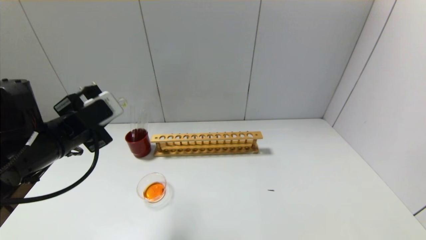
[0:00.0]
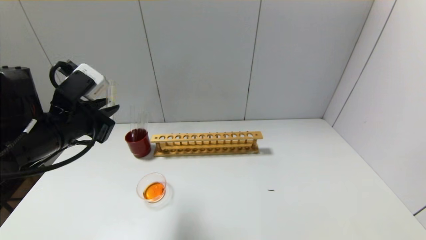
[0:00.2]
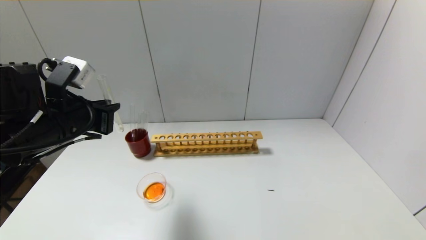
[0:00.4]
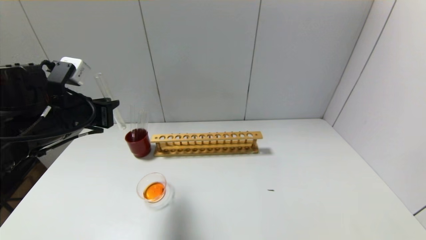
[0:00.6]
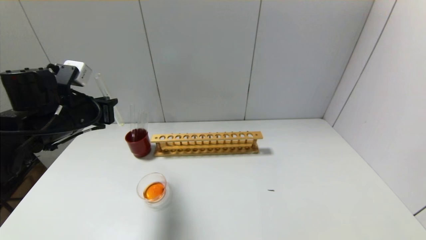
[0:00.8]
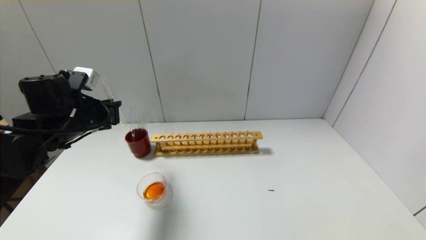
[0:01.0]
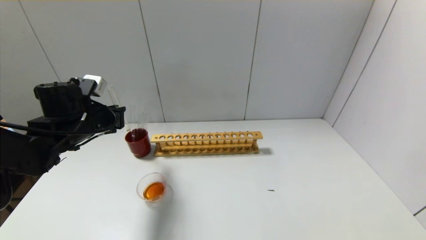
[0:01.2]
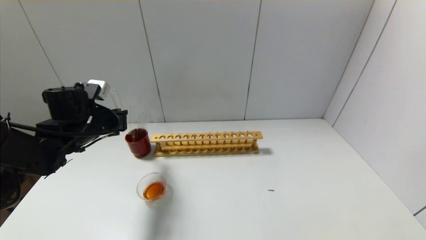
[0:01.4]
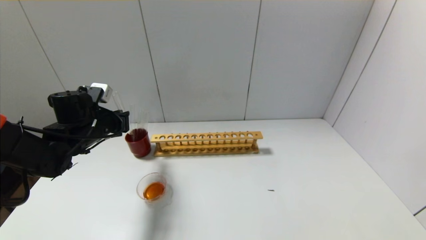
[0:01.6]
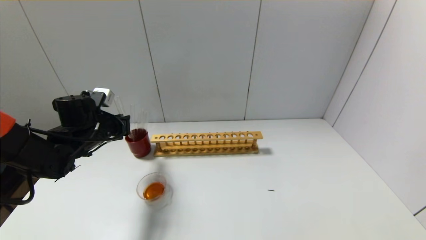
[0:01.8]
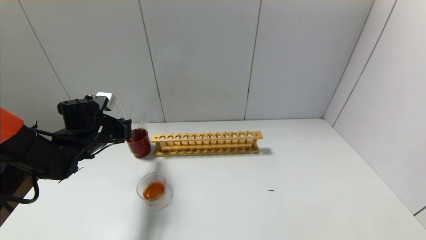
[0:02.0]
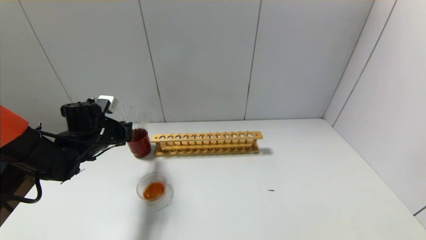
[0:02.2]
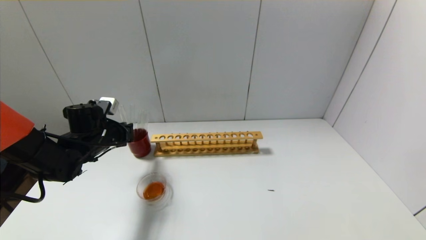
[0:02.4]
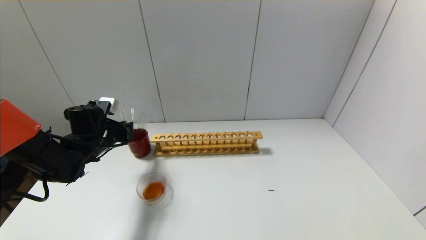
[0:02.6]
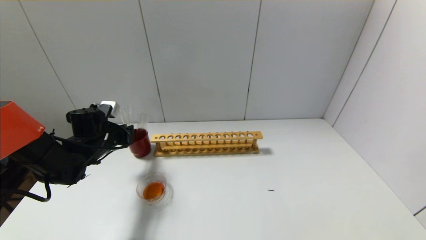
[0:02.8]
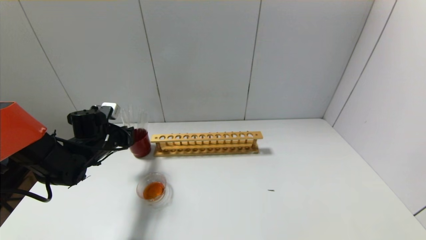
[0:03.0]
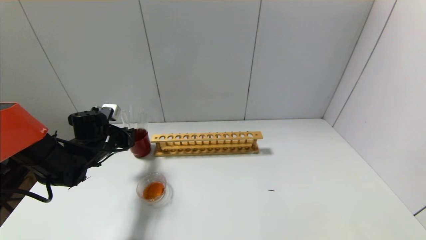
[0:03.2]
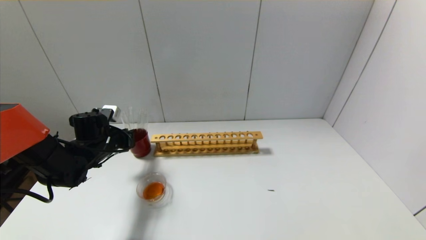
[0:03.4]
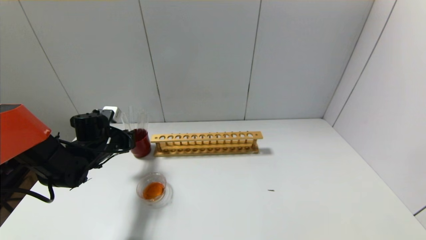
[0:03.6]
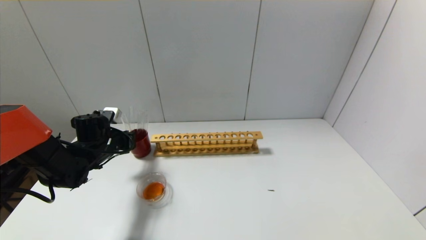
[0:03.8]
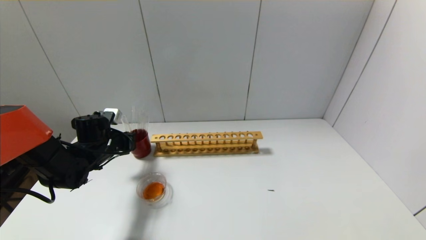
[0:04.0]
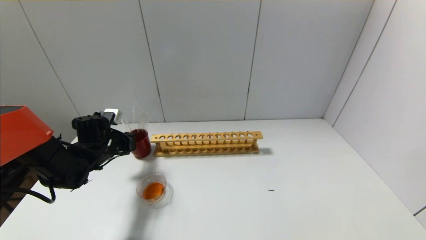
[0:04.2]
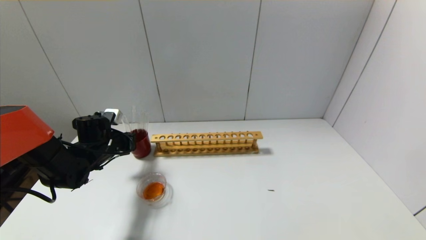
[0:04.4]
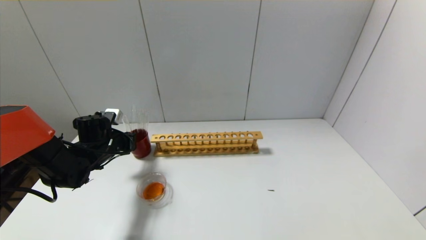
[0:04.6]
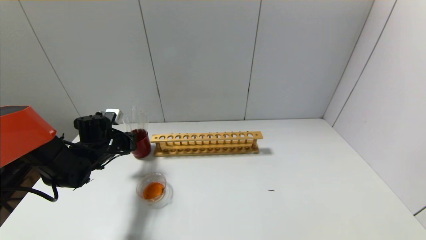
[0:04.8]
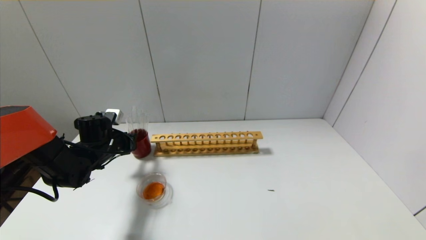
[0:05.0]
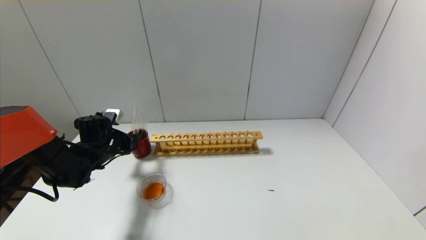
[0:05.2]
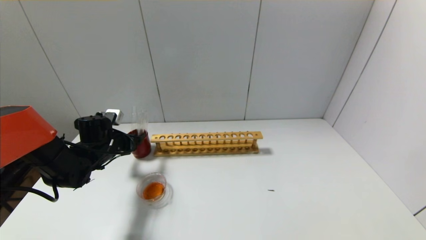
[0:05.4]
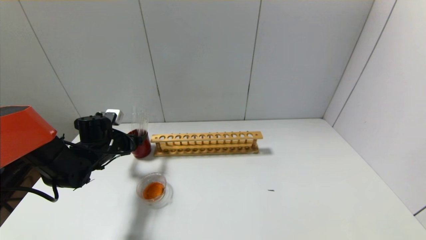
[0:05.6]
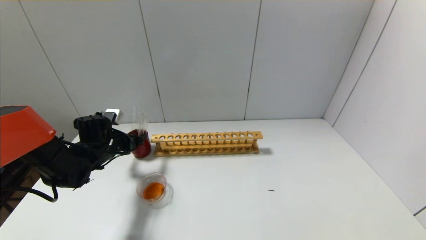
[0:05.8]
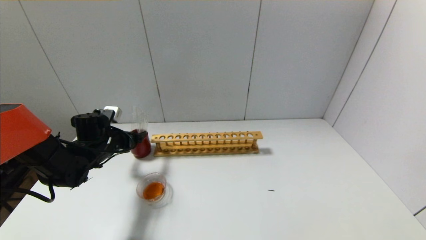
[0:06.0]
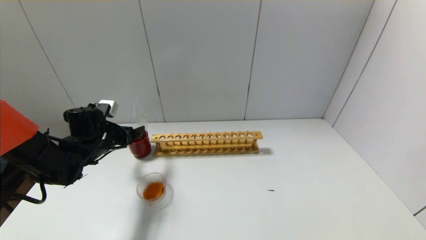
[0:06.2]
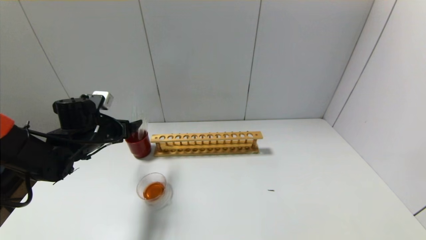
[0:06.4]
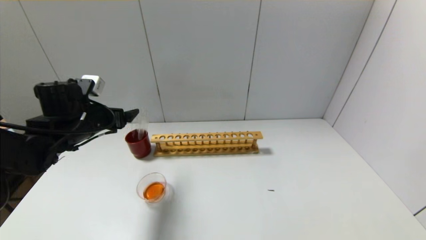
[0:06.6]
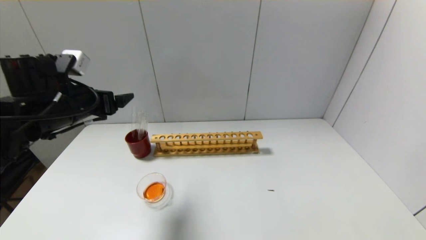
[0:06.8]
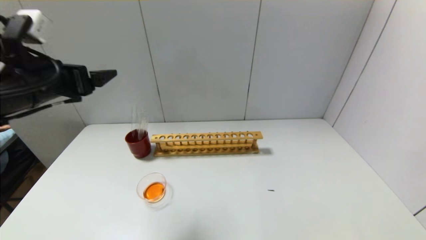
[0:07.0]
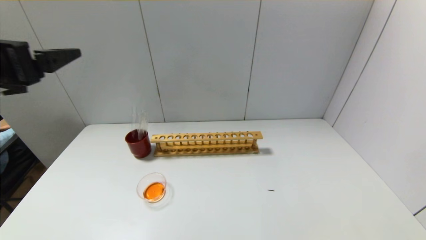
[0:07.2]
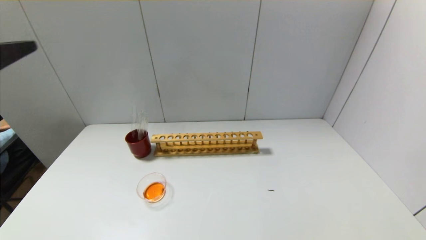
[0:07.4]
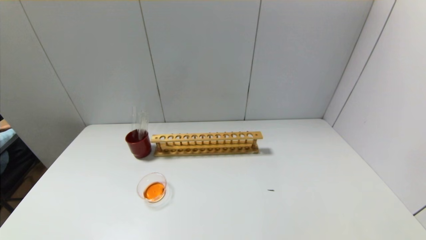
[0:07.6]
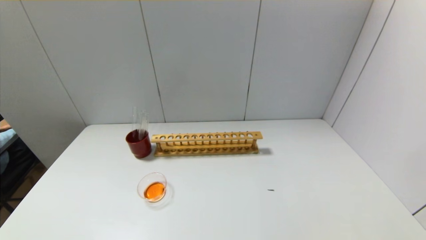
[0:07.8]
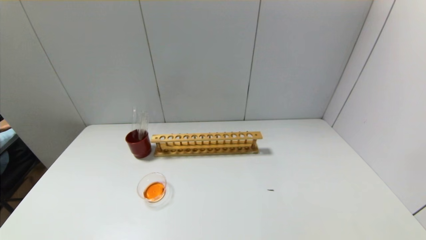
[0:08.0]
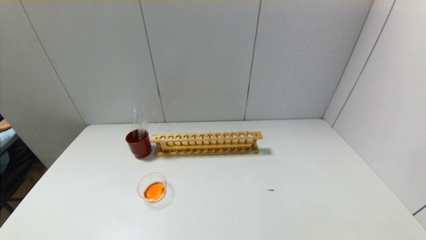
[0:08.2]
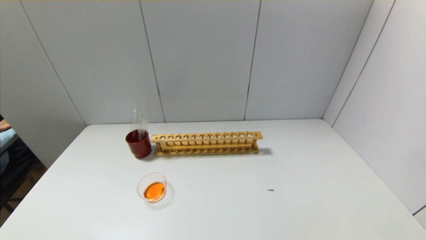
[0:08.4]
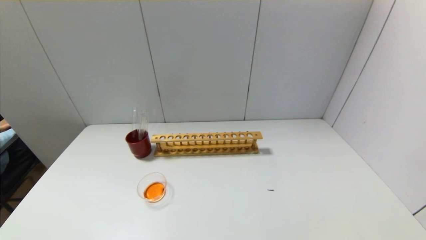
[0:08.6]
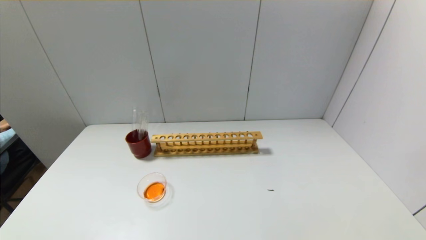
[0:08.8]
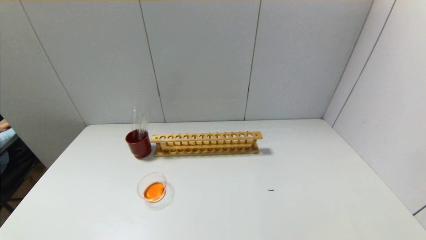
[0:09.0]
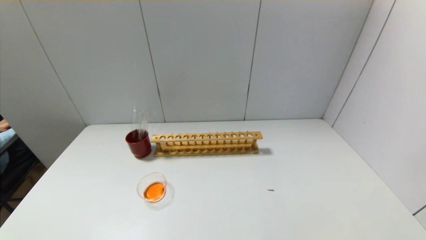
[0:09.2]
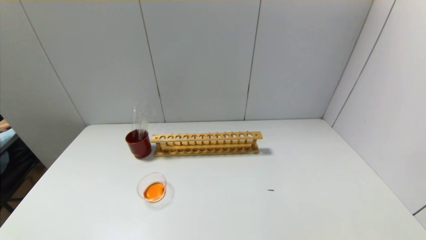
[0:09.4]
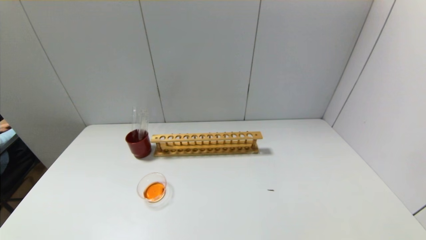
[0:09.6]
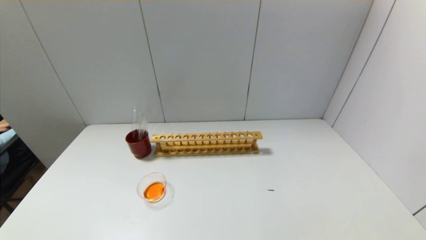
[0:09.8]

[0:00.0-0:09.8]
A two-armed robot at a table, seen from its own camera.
Step, 0.0 to 6.0 s: Place the test tube into the brown cup with the left gripper.
0.0 to 1.4 s: The left gripper goes approximately 10 cm forward and downward.
1.4 to 2.8 s: The left gripper shifts approximately 5 cm downward.
2.8 to 4.2 s: The grippers move only a little.
4.2 to 5.6 s: The left gripper opens.
5.6 to 7.0 s: The left gripper shifts some 25 cm upward and backward.
7.0 to 8.4 s: The left gripper is displaced backward and downward by approximately 35 cm.

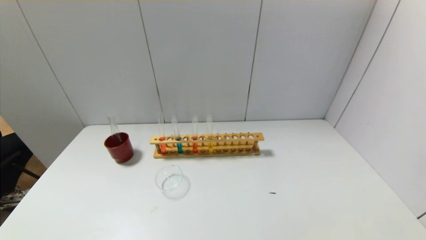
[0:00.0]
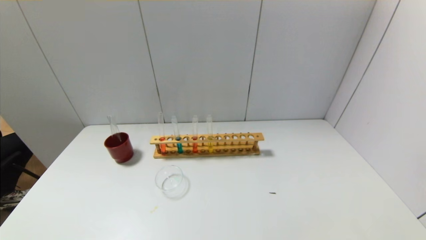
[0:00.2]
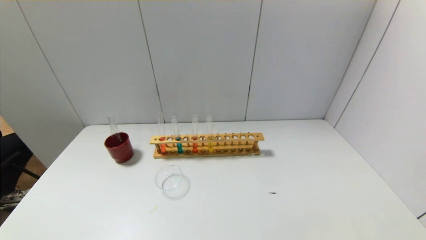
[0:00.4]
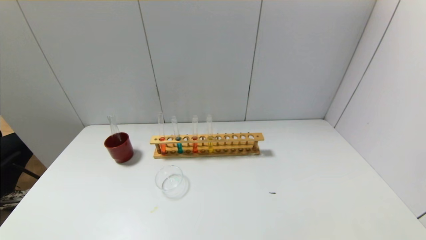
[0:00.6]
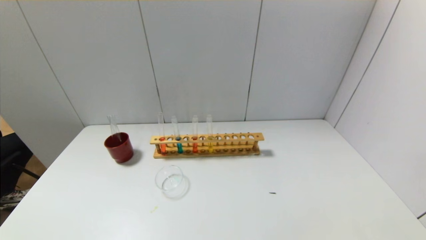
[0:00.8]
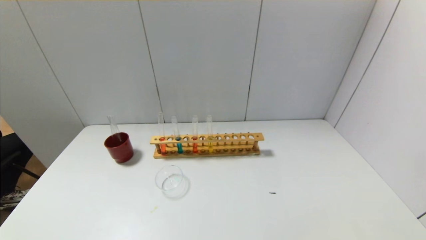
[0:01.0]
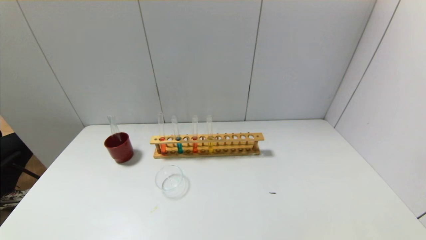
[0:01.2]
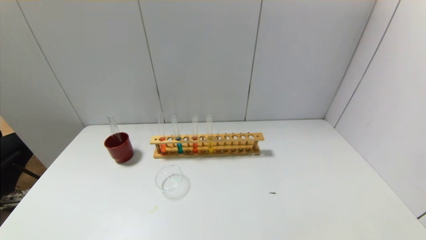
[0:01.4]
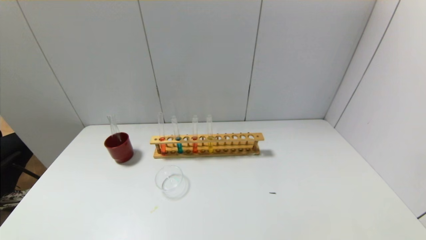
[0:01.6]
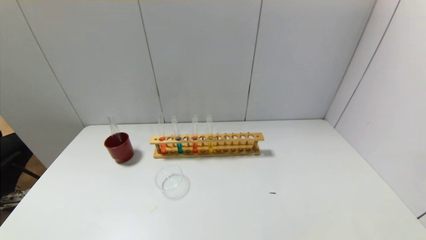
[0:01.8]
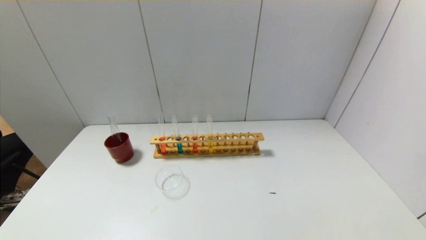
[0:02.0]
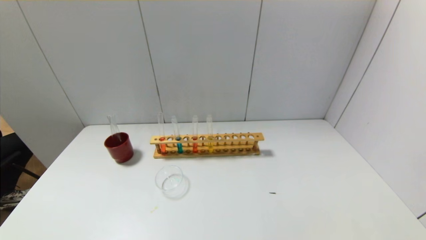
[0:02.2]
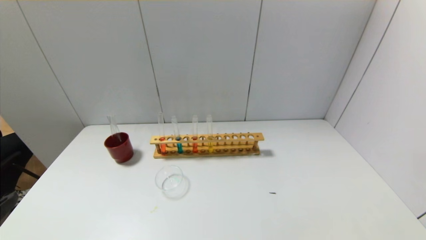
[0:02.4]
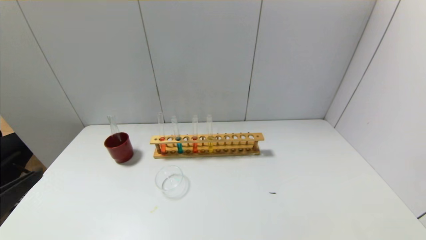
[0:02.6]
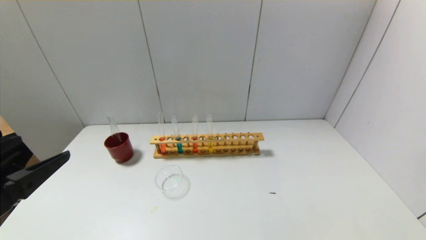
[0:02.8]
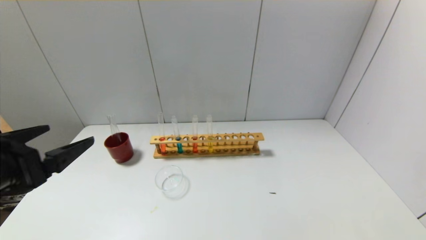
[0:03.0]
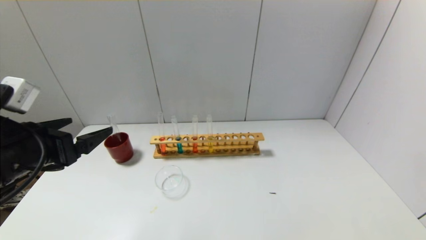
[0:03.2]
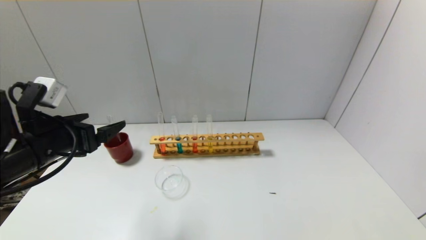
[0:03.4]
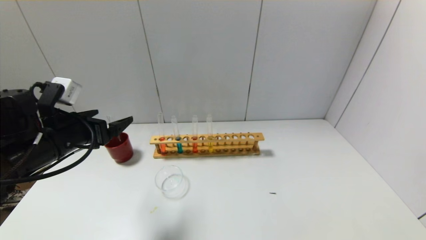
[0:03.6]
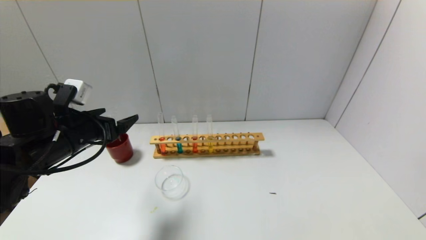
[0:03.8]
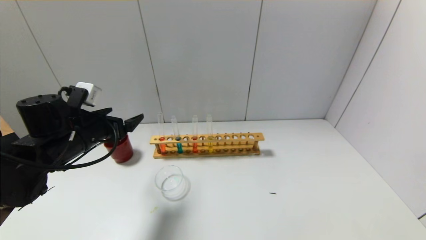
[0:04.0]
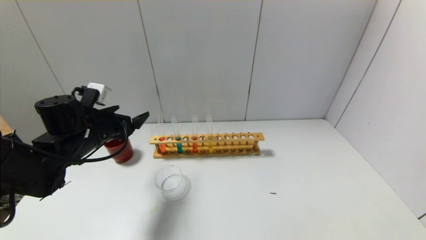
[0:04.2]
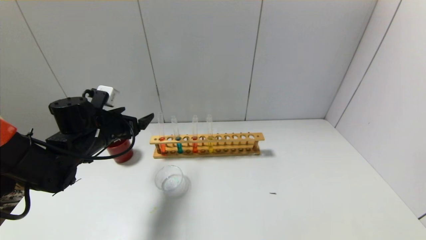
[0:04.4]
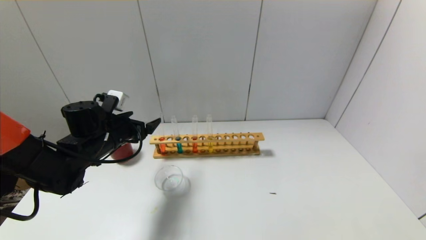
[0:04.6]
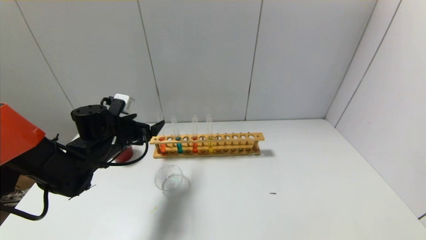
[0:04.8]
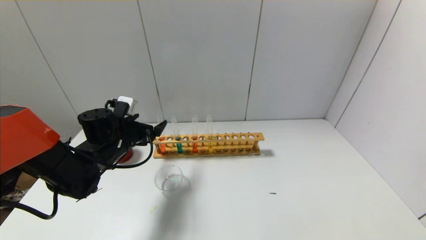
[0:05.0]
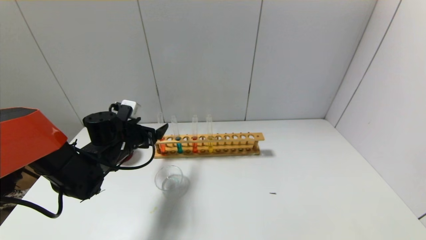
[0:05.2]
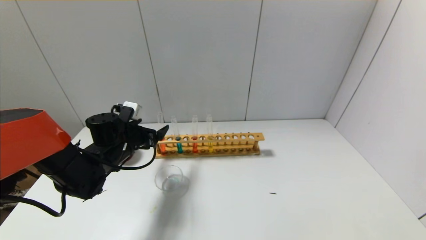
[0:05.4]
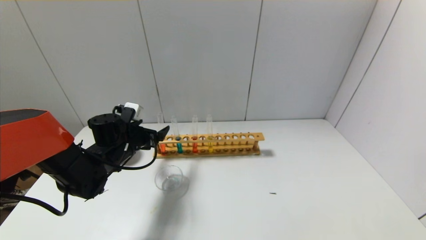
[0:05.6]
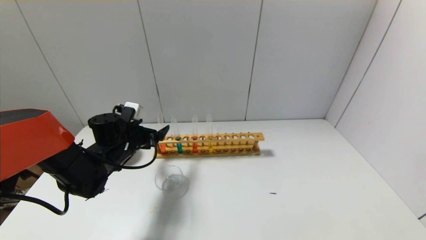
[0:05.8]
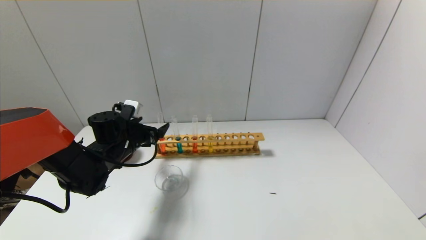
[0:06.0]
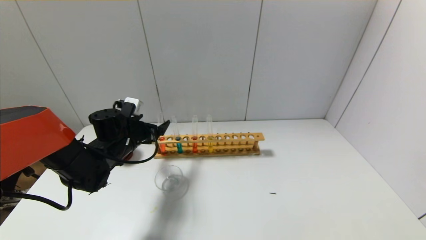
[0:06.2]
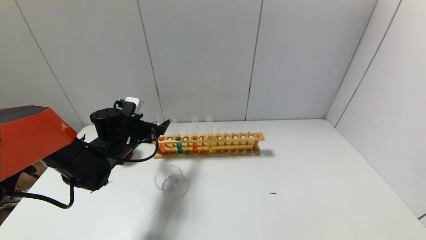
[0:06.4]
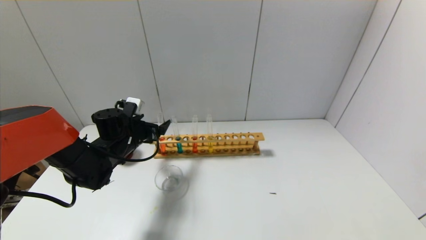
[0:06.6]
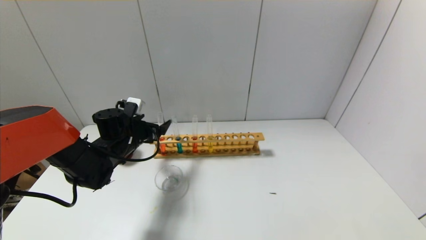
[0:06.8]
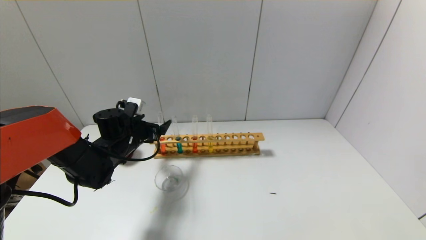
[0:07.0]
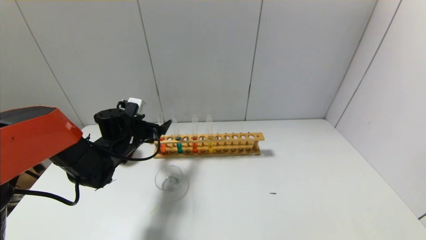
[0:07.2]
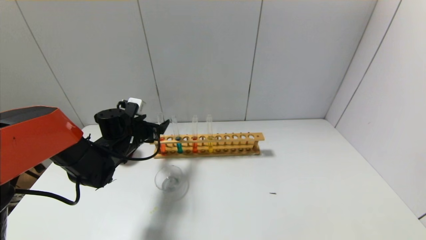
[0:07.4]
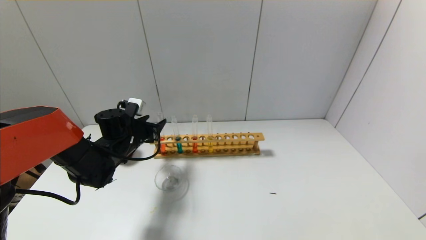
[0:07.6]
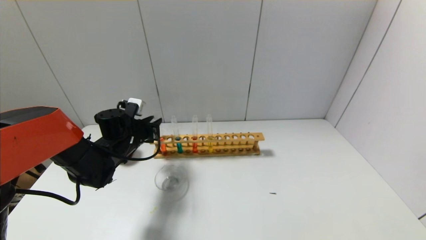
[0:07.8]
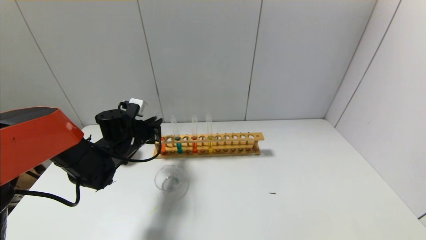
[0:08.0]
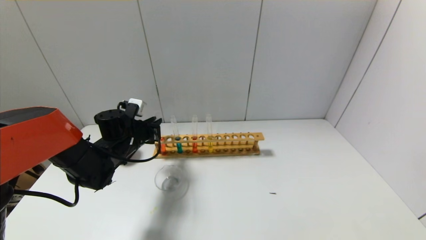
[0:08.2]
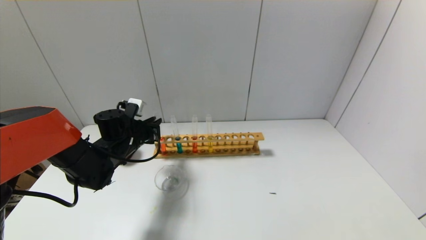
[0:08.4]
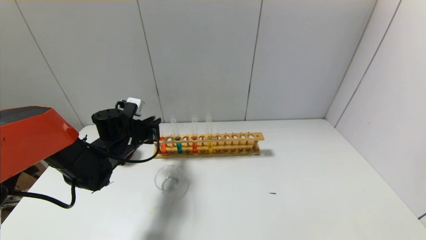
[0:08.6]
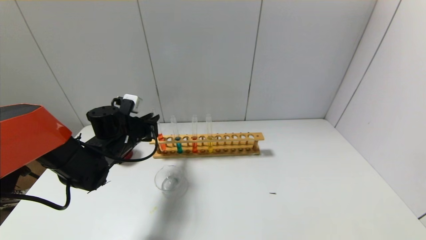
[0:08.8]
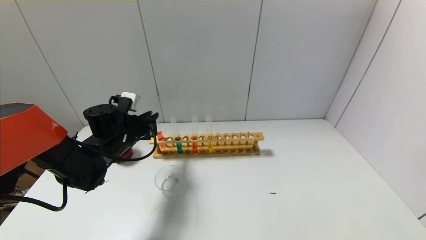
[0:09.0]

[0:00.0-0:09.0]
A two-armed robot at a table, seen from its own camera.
Step, 0.0 to 7.8 s: Grasp the red reagent with the left gripper.
1.6 to 3.0 s: The left gripper heads forward and upward, covering approximately 20 cm.
3.0 to 4.4 s: The left gripper travels forward and downward by about 20 cm.
4.4 to 6.0 s: The left gripper changes place by some 5 cm.
6.0 to 7.6 s: The left gripper closes up.
7.6 to 9.0 s: The left gripper closes up.
